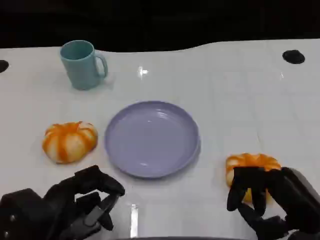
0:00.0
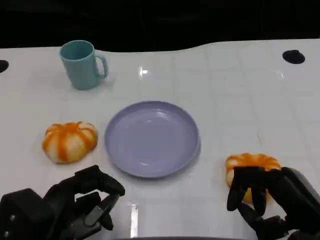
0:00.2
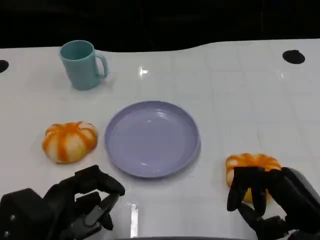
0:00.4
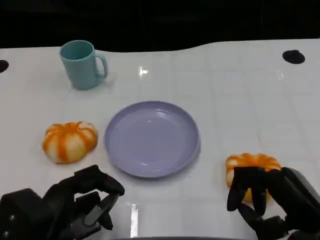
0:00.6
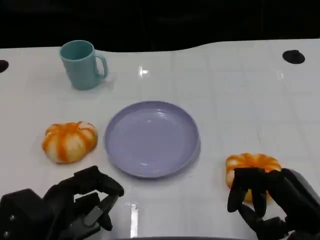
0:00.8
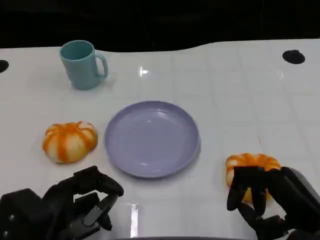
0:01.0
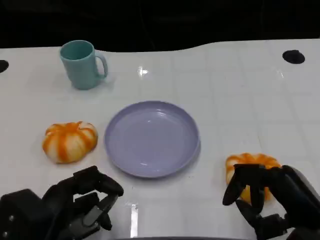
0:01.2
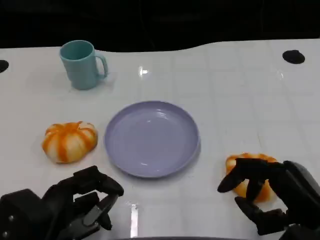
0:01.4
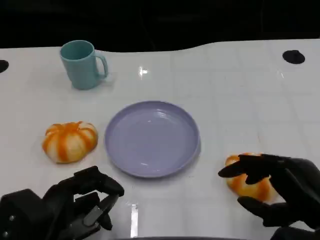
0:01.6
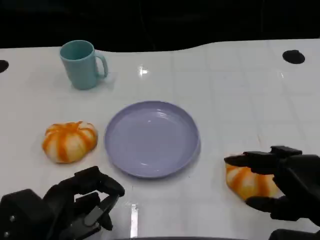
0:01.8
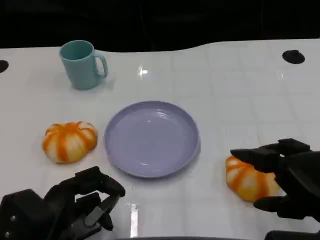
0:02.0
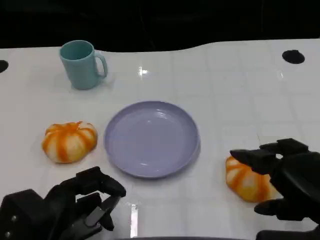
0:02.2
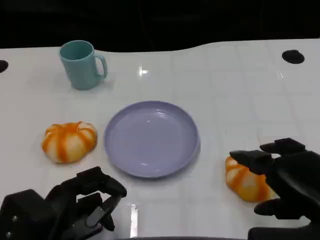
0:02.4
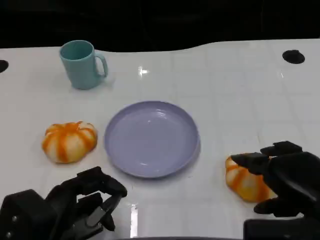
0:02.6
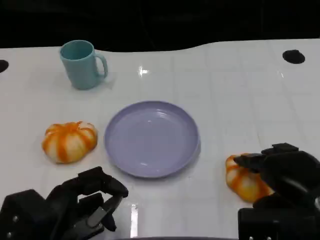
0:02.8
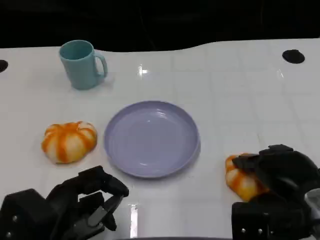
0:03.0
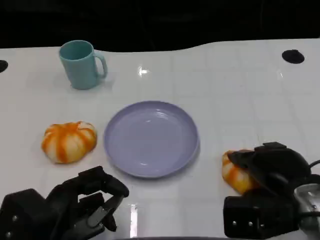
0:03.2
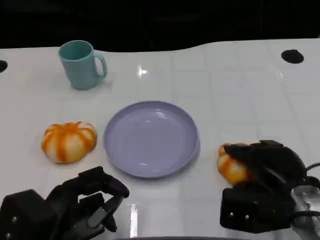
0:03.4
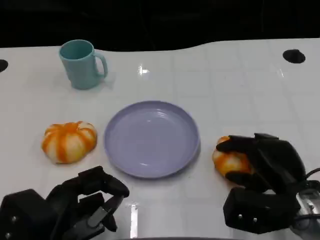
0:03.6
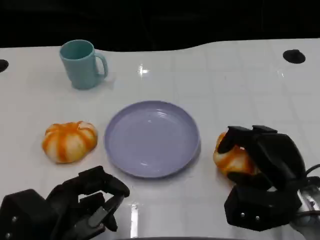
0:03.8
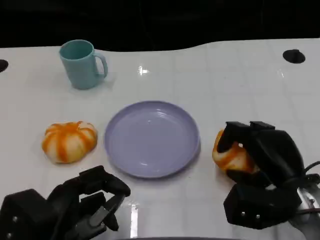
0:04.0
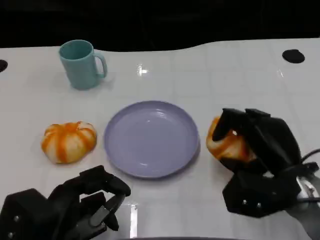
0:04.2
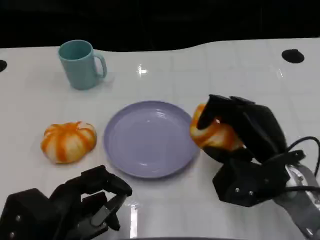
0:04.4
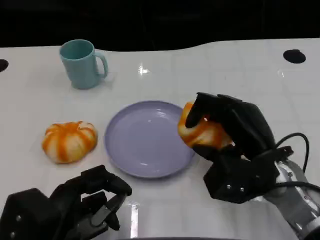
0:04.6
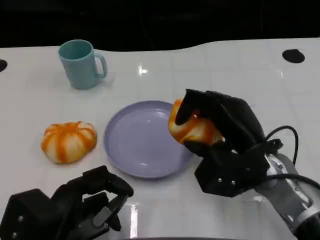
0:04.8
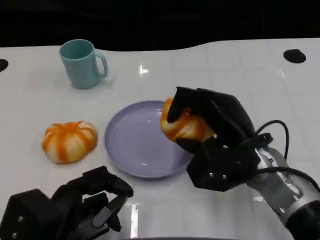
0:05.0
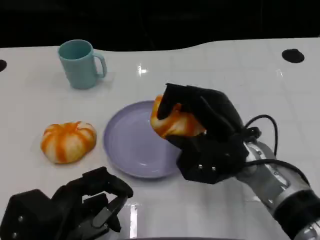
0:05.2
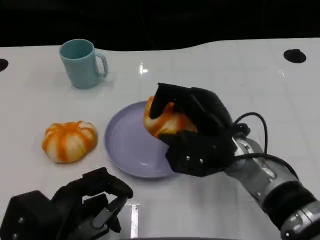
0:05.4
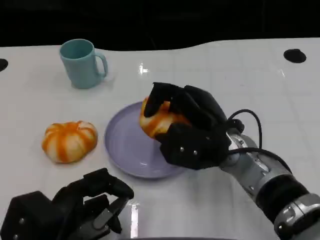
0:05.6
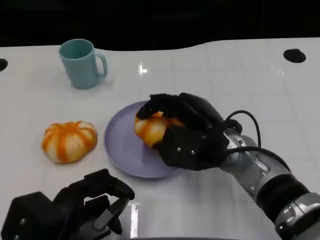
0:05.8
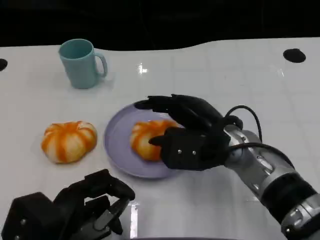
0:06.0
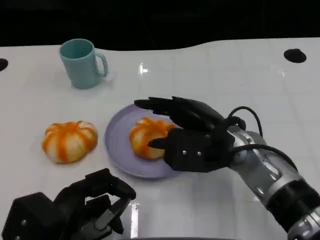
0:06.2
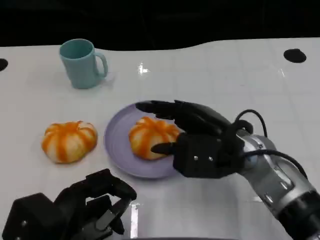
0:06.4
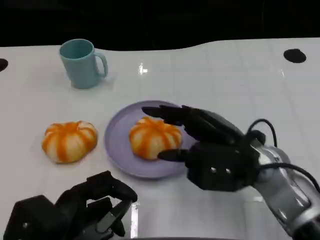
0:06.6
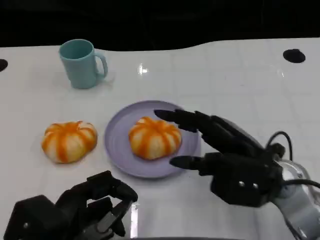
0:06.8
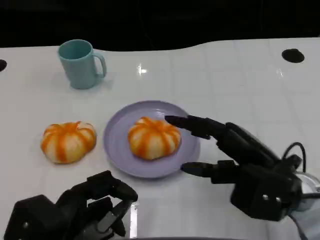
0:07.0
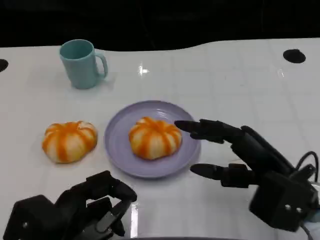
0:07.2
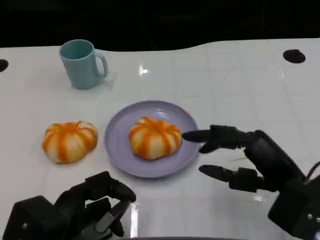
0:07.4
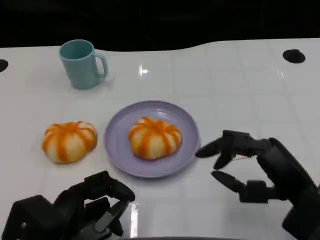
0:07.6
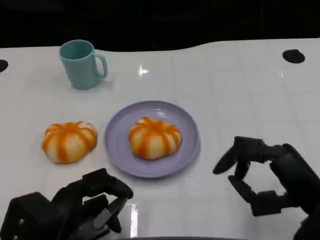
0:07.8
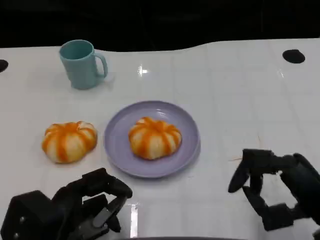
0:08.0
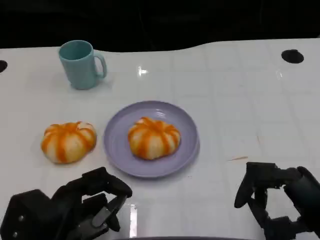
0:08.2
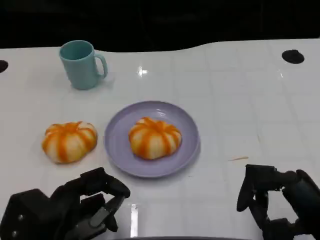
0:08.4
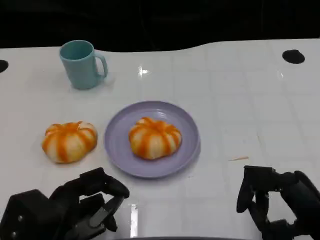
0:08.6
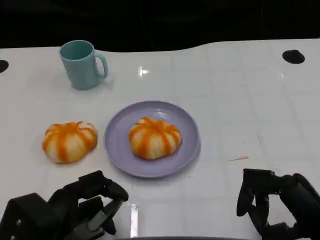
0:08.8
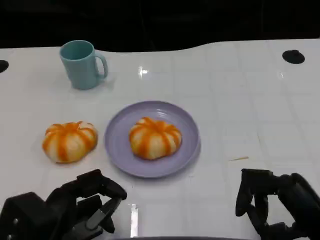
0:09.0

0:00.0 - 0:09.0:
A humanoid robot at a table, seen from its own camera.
Task of the whole recording: Grasp the bread from the table and place it into the plate.
0:00.0 - 0:01.6: There are only small adjustments of the hands.
0:01.6 - 0:03.0: The right hand is displaced forward by roughly 5 cm.
0:03.0 - 0:04.4: The right hand changes place by roughly 5 cm.
0:04.4 - 0:06.0: The right hand heads to the left, covering some 5 cm.
0:06.0 - 0:07.6: The right hand goes some 15 cm to the right and backward.
0:07.6 - 0:09.0: There are only small adjustments of the hands.

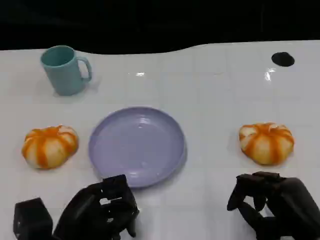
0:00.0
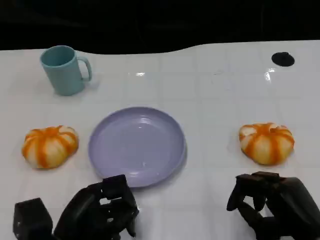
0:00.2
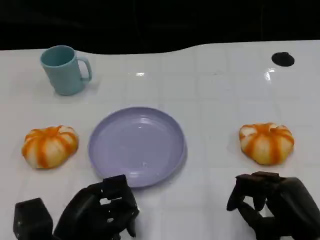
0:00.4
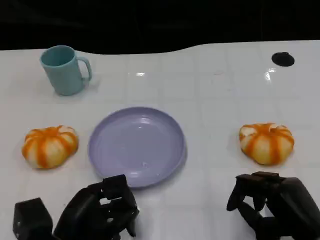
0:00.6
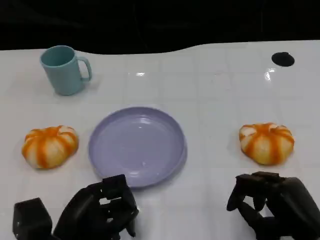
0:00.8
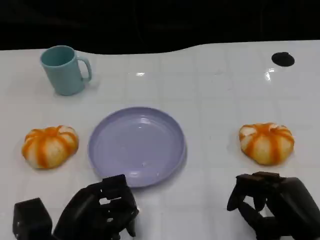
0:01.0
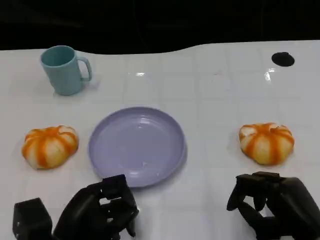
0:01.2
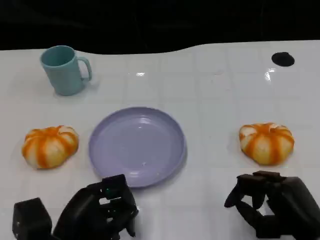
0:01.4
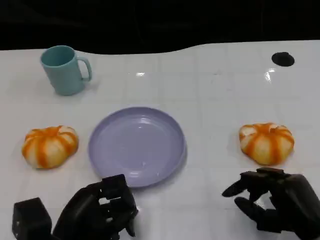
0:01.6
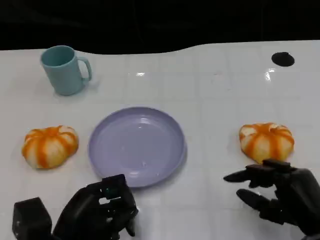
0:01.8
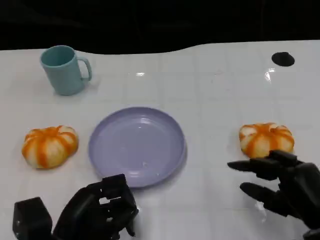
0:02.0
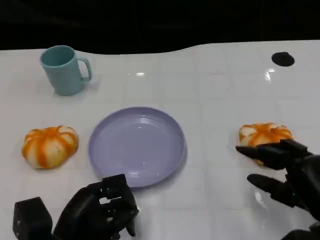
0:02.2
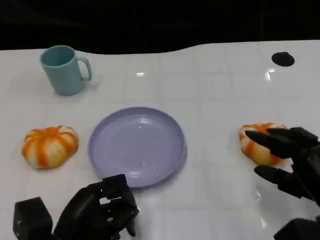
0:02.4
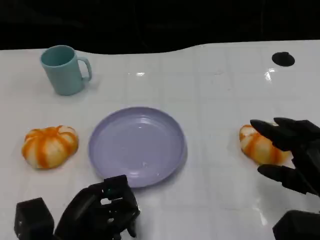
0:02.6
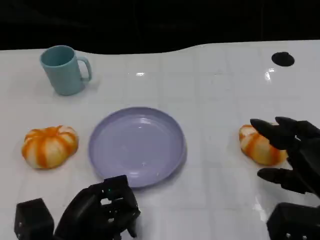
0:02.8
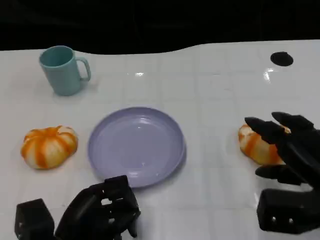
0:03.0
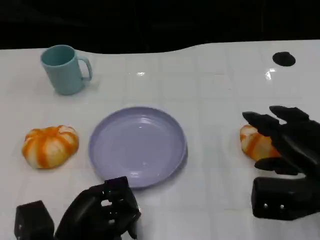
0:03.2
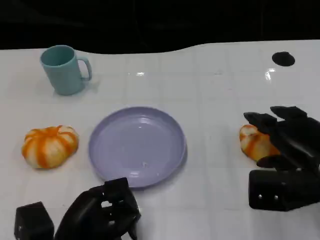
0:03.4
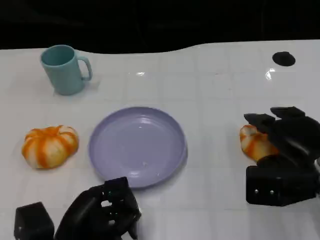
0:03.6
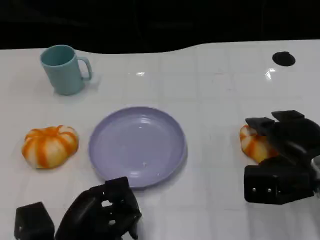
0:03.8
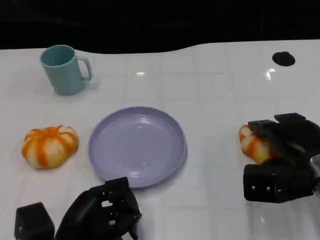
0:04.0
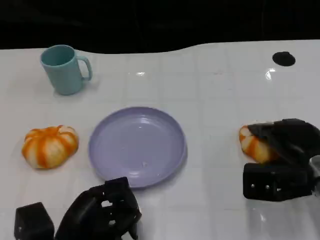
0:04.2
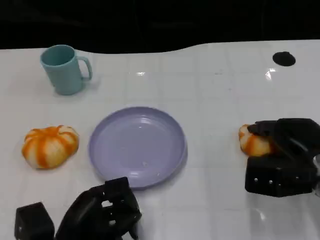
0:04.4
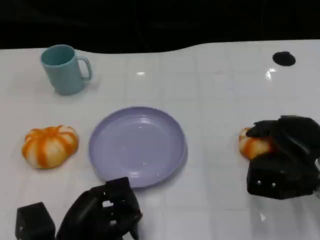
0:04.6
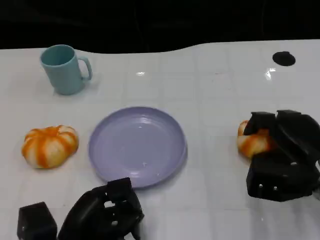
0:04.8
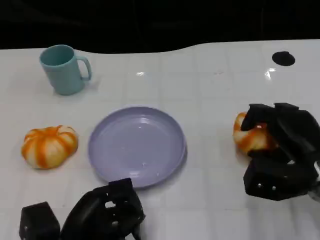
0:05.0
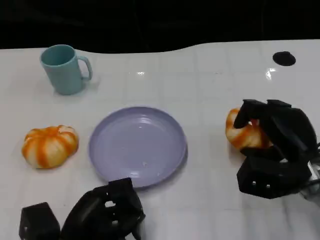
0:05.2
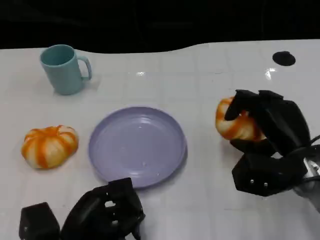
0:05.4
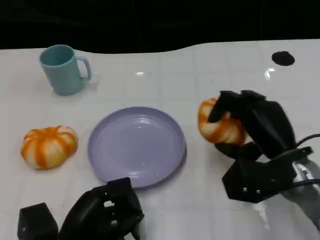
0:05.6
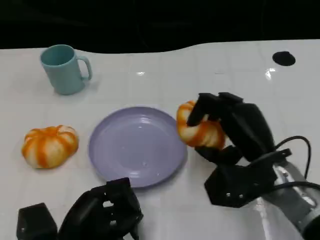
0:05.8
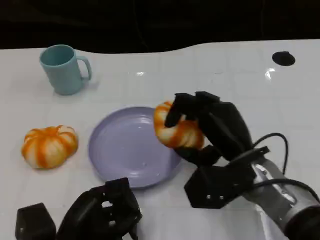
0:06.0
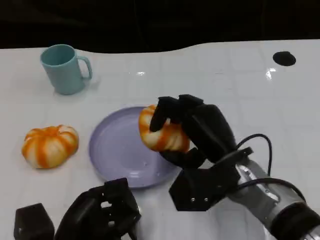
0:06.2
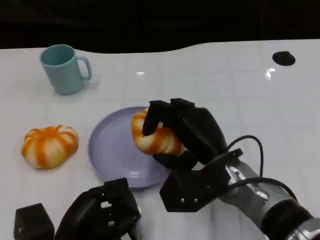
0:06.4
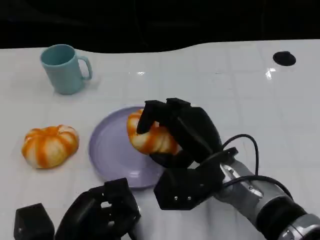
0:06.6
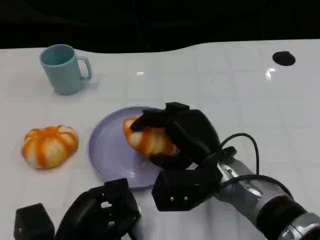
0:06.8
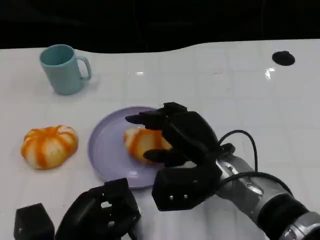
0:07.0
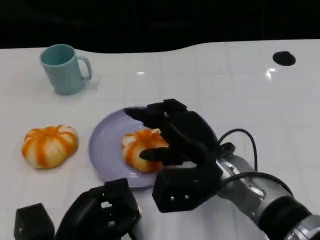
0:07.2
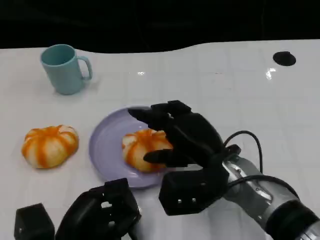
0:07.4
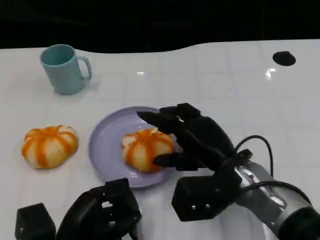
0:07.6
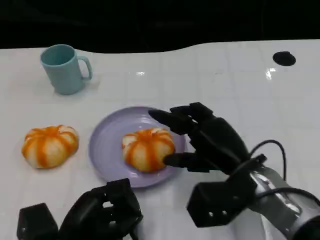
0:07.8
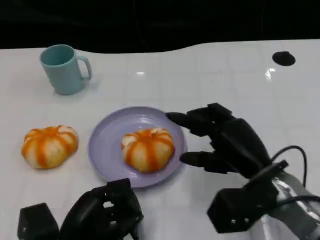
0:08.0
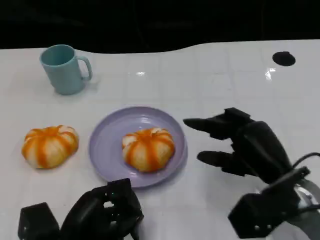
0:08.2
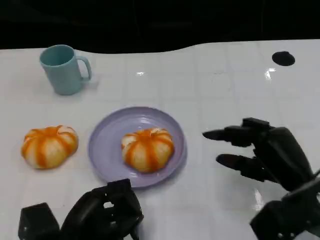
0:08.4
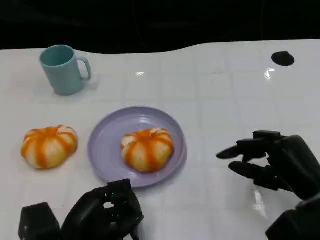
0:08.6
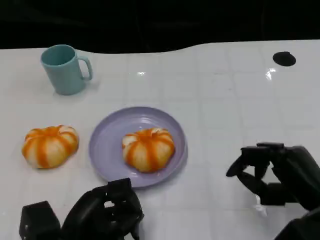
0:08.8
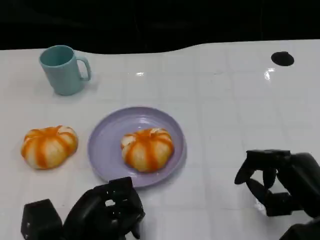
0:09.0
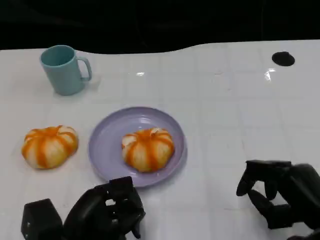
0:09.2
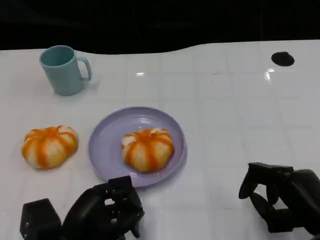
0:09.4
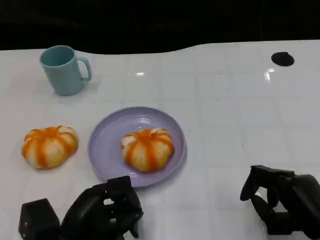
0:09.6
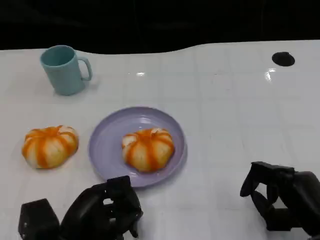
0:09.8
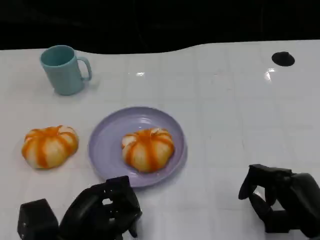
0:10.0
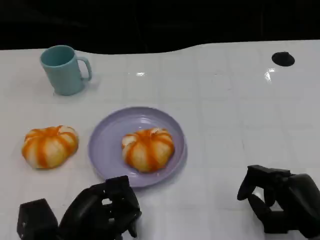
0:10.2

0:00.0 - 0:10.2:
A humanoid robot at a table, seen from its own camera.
Task of the whole recording: Grasp the bread from the table and place it into the plate.
0:00.0 - 0:01.4: Both hands stay about where they are.
0:01.4 - 0:03.0: The right hand shifts about 10 cm upward and forward.
0:03.0 - 0:04.4: The right hand moves forward, about 5 cm.
0:04.4 - 0:05.8: The right hand heads to the left, covering roughly 10 cm.
0:05.8 - 0:07.2: The right hand moves to the left, roughly 5 cm.
0:07.2 - 0:08.8: The right hand travels to the right and backward by roughly 15 cm.
0:08.8 - 0:10.2: The hands stay close to where they were, moving slightly.

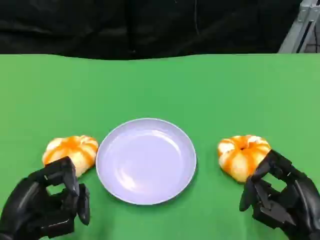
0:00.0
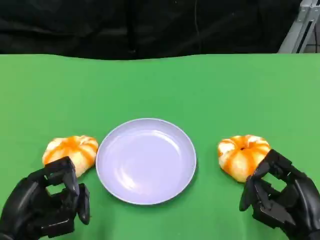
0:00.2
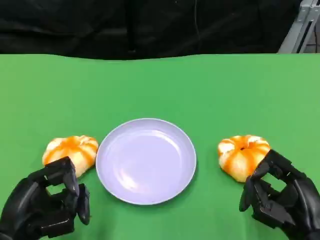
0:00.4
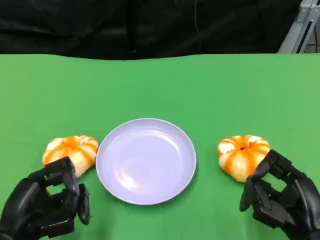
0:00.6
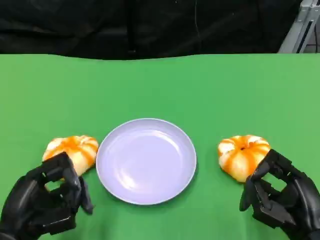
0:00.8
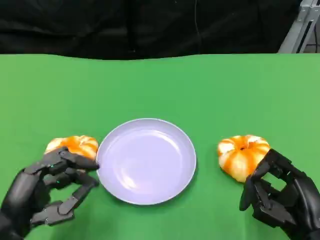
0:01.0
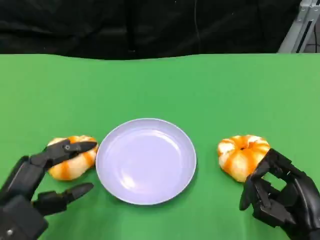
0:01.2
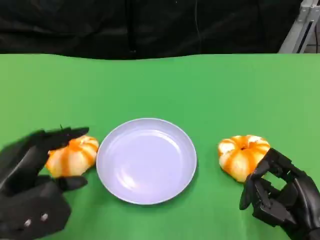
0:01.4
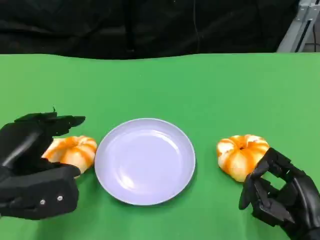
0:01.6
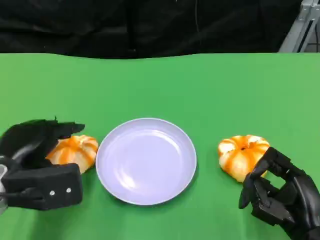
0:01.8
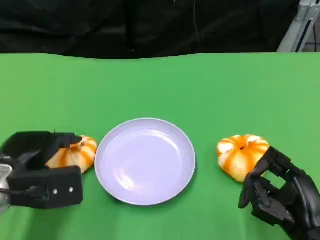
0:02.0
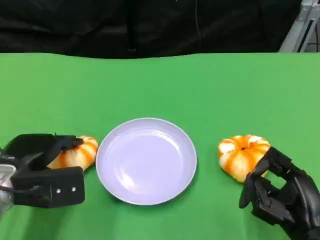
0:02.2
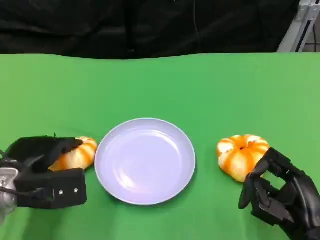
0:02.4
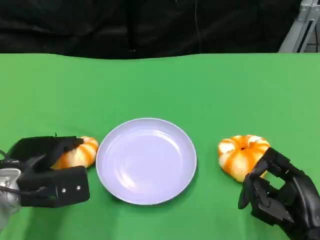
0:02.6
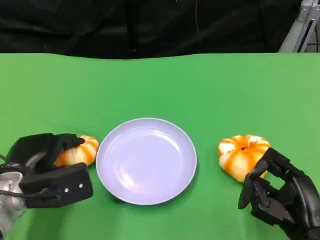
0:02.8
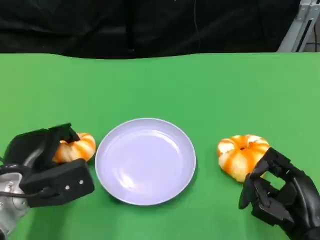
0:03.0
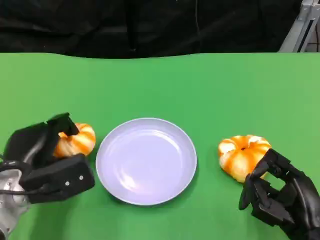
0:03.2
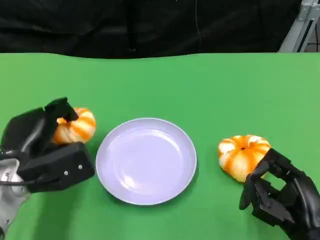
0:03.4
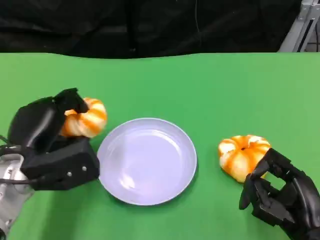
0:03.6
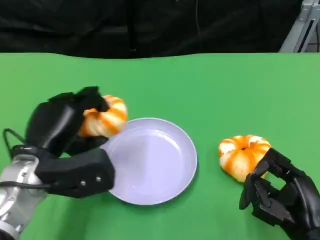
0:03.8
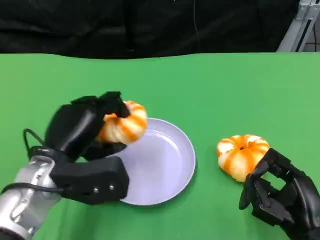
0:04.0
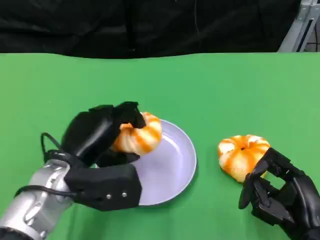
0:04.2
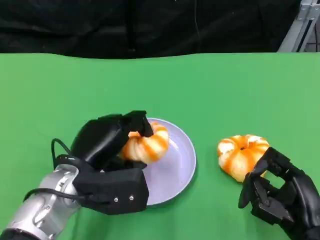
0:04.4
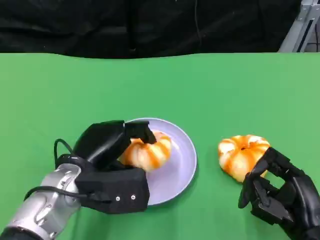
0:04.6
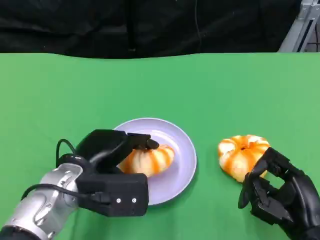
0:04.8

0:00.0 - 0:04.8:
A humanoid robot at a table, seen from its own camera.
Task of the whole recording: Grasp the bread from the table and place it into the plate.
0:00.0 - 0:01.6: The left hand is displaced forward and upward by some 10 cm.
0:01.6 - 0:03.2: The left hand travels downward by roughly 5 cm.
0:03.2 - 0:04.8: The left hand goes some 10 cm to the right.
